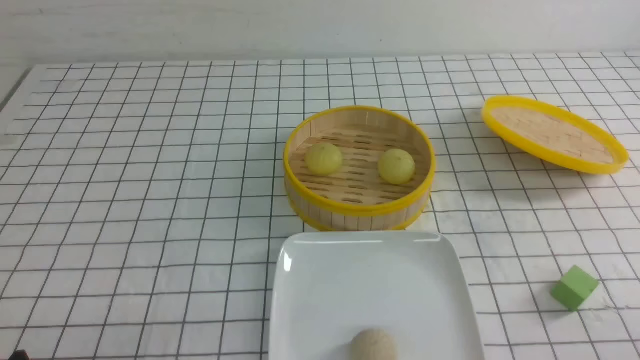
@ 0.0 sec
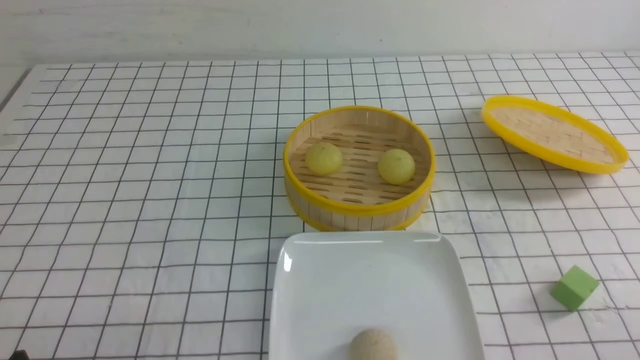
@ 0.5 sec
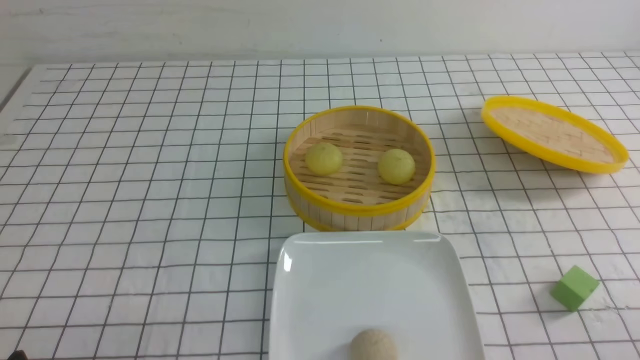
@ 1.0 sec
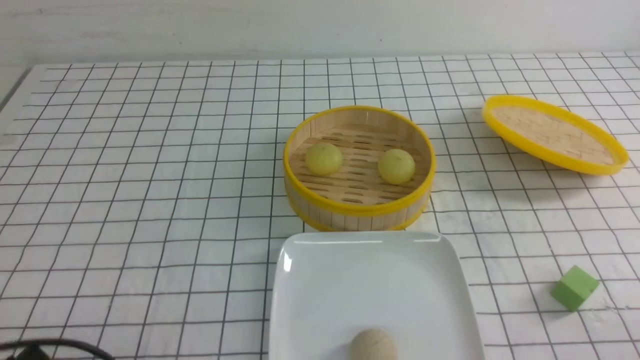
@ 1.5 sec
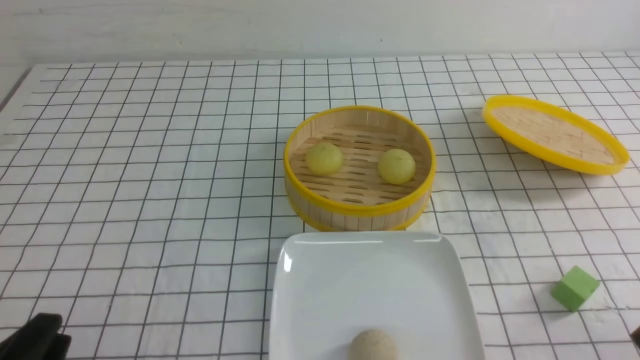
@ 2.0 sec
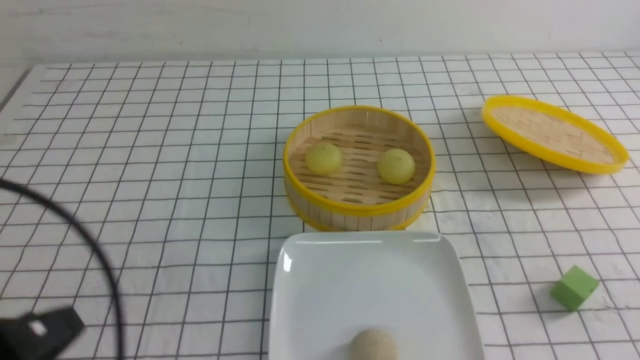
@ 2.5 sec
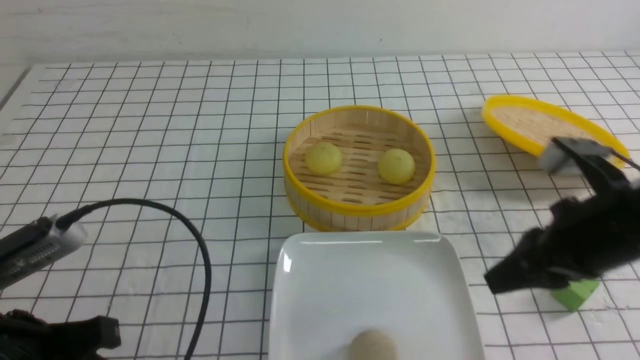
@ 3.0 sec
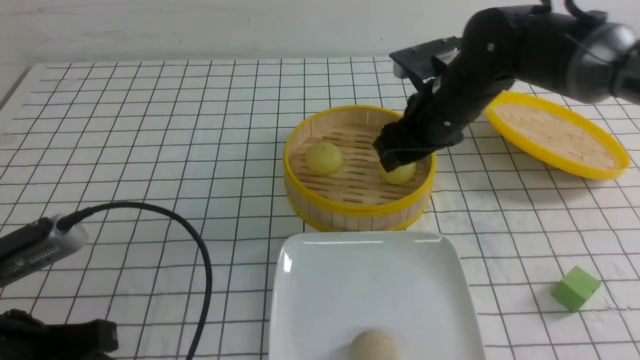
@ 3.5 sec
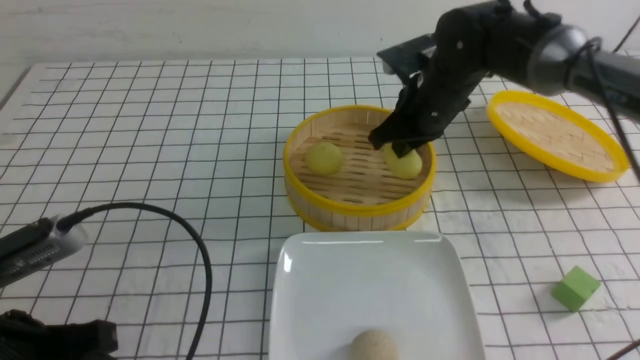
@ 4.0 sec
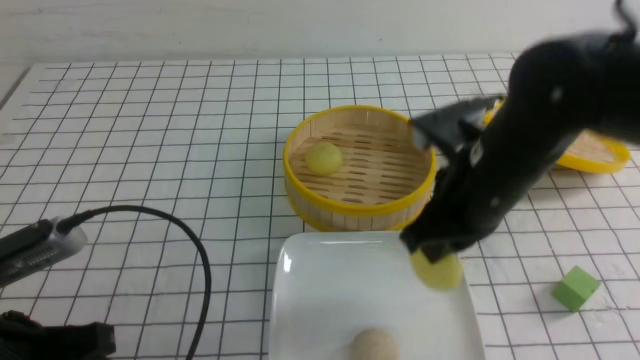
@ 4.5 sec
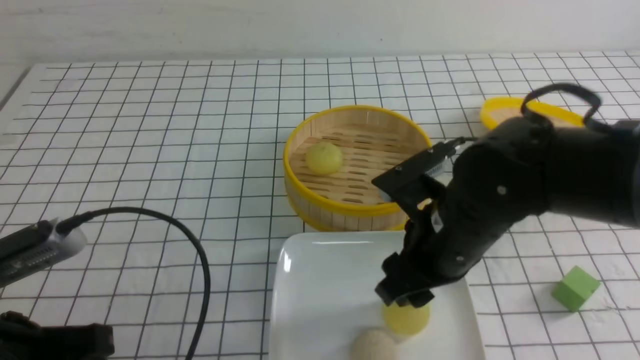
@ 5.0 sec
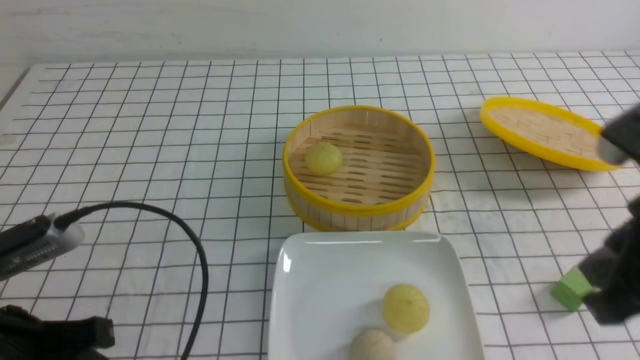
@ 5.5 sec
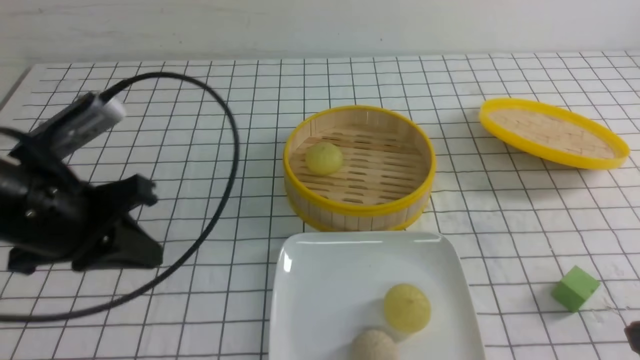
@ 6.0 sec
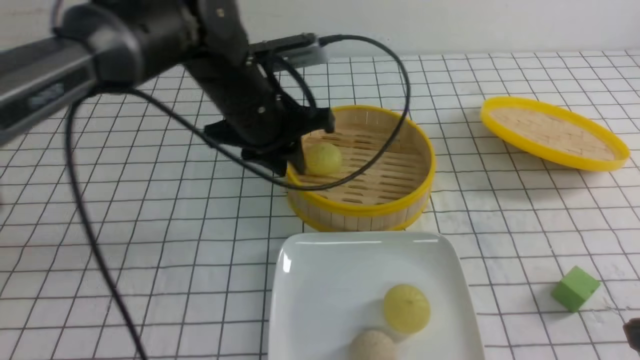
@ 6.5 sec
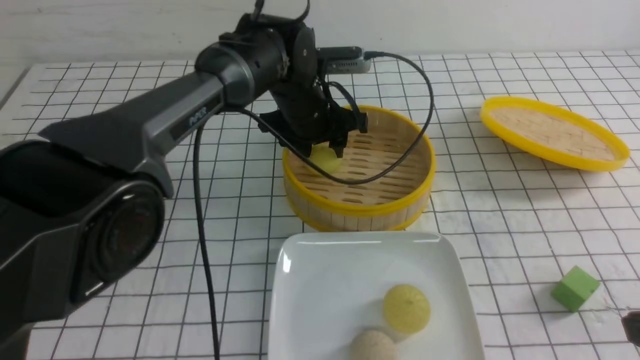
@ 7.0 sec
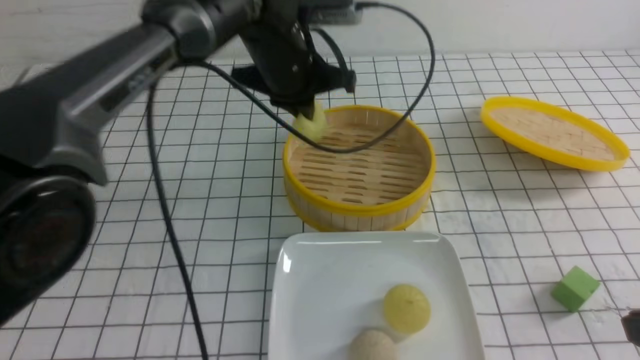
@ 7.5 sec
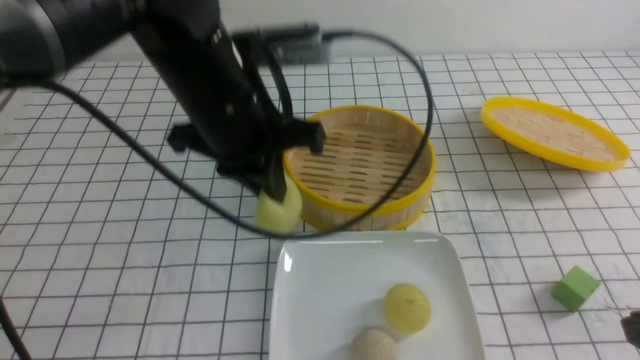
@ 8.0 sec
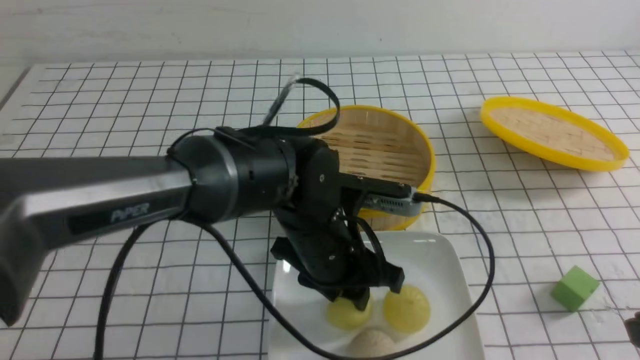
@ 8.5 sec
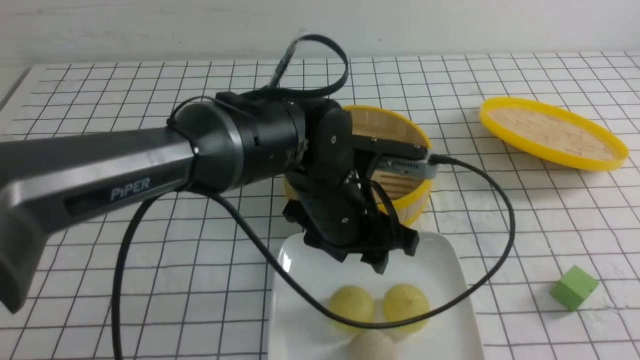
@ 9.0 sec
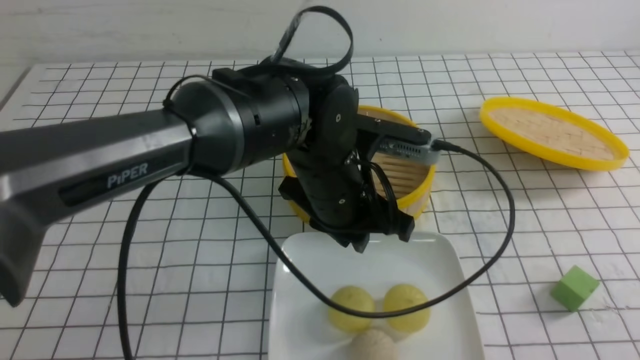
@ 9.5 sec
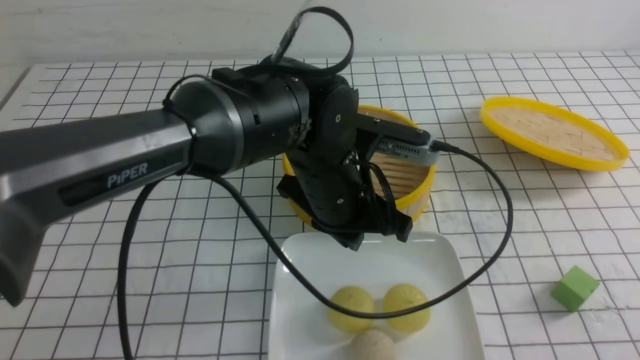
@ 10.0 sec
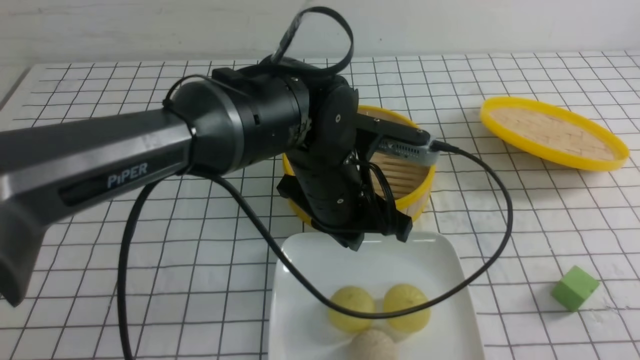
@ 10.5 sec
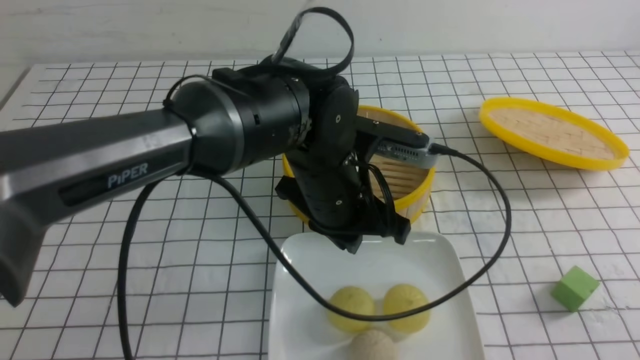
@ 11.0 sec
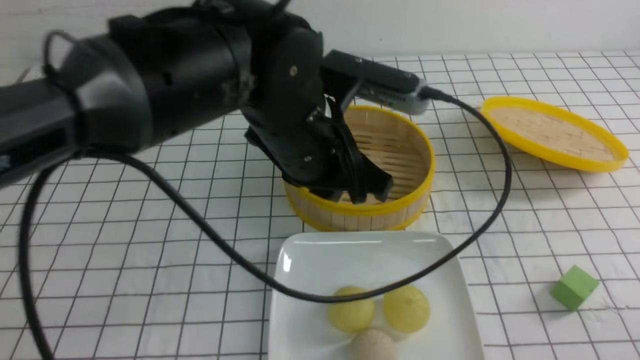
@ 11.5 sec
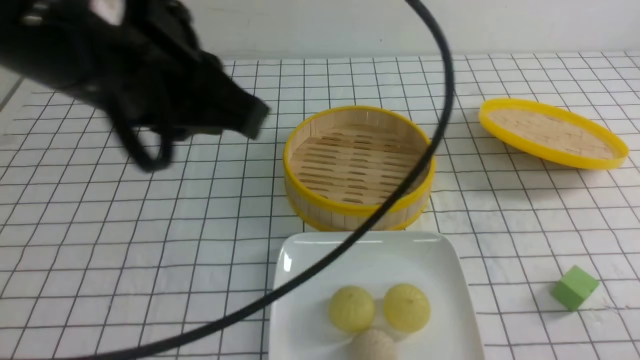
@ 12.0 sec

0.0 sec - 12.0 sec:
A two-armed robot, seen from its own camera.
Step, 0.0 sec - 3.5 sec: use the right arm to grab the steamed stuffed bun that is closest to it.
Step, 4.5 sec - 5.0 sec: use the right arm to put the steamed stuffed bun into the plate.
Step, 5.5 sec - 7.0 sec: use the left arm to grab the steamed stuffed bun that is closest to it.
Step, 7.5 sec - 8.5 sec: use the left arm to put the steamed stuffed bun into the plate.
2.0 sec - 4.0 sec: The right gripper heads forward and to the left, covering roughly 40 cm, and opens, then closes again; the left gripper shifts some 5 cm forward, and closes, then opens again.
4.0 sec - 6.0 sec: The left gripper travels forward by approximately 10 cm, and closes, while the right gripper goes about 35 cm backward and to the right, and opens, then closes again.
6.0 sec - 8.0 sec: The left gripper moves to the right, about 15 cm, reaches some 20 cm forward, then returns, and opens and closes again.
8.0 sec - 10.0 sec: The left gripper is displaced to the right and downward by roughly 10 cm, and opens, then closes again, while the right gripper shifts roughly 5 cm backward.
10.0 sec - 12.0 sec: The left gripper travels upward, to the left and backward by roughly 25 cm. Meanwhile the right gripper moves downward, about 10 cm.

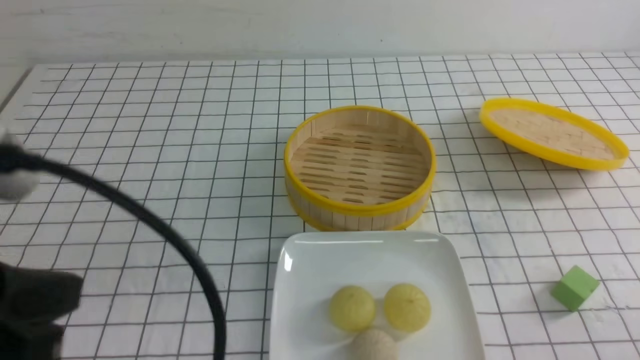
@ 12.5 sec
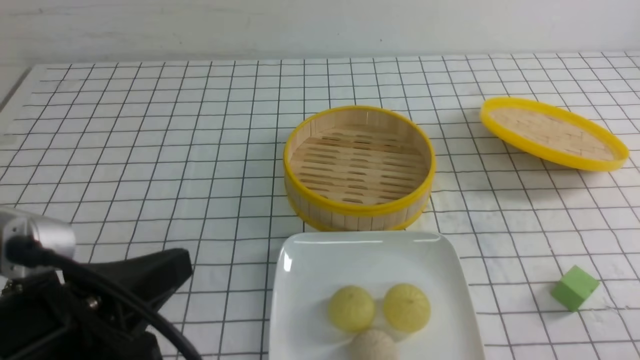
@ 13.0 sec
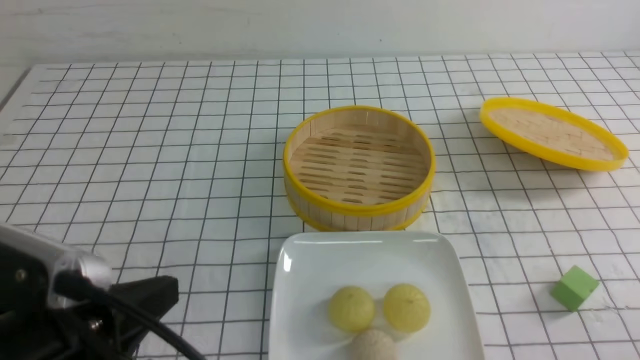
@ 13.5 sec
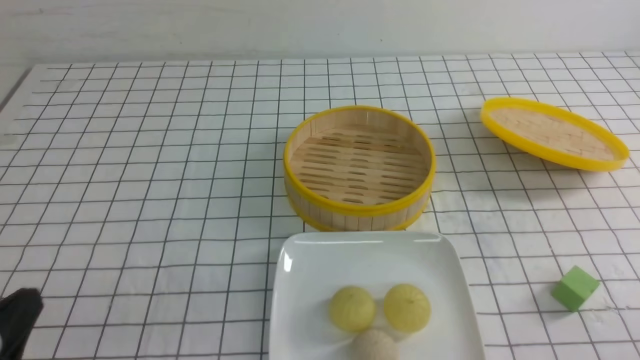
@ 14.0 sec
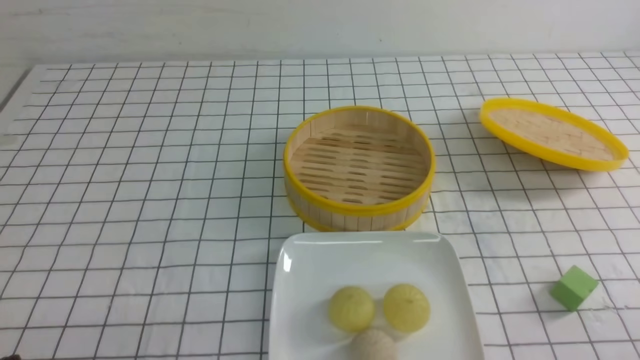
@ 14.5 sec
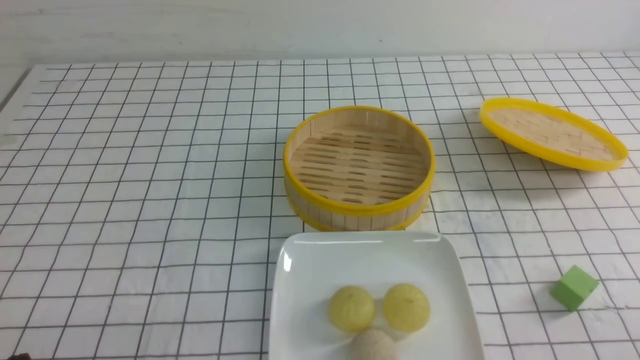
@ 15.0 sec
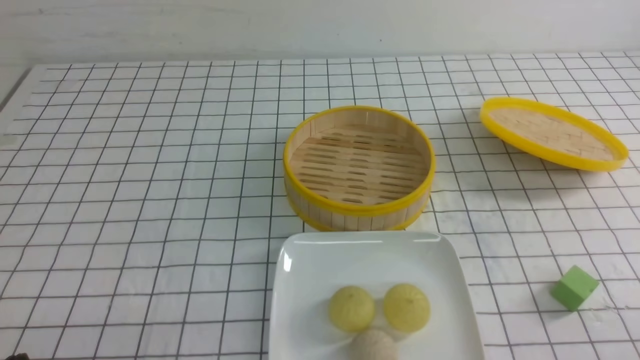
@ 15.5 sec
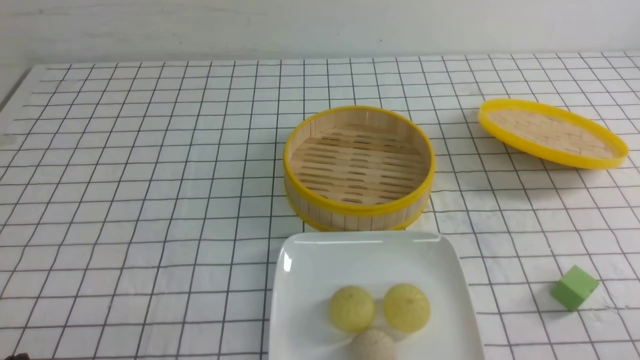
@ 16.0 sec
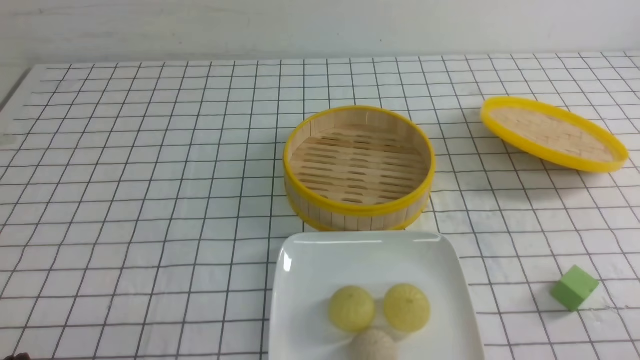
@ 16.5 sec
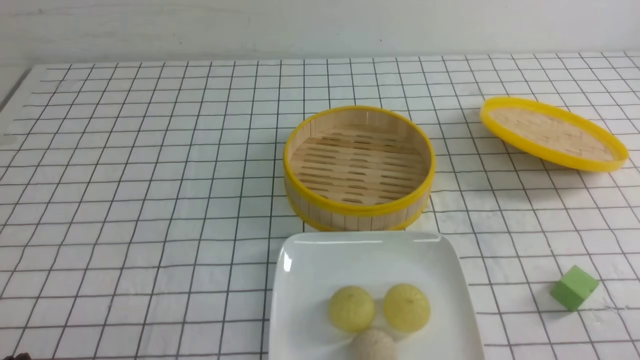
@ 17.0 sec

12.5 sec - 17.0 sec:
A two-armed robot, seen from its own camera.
12.5 sec - 14.5 sec: The left gripper goes approximately 20 cm downward.
14.5 sec - 17.0 sec: The two grippers keep their place.
